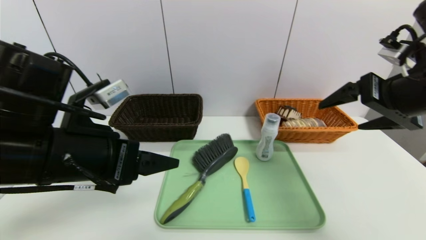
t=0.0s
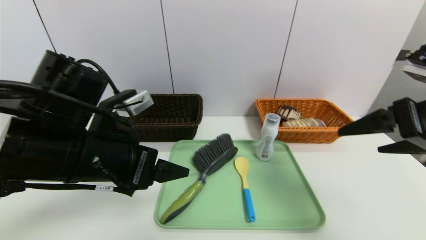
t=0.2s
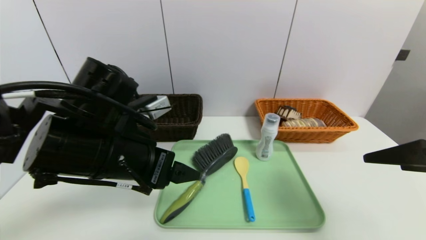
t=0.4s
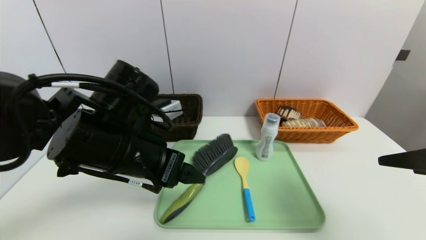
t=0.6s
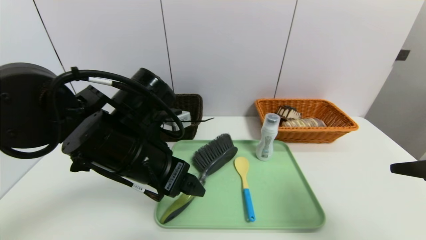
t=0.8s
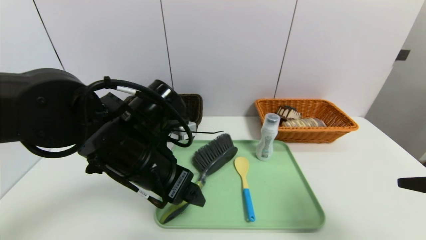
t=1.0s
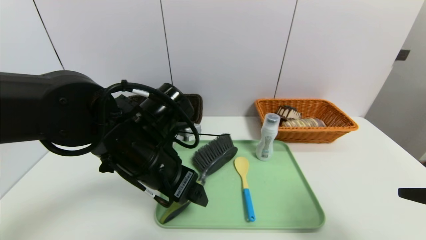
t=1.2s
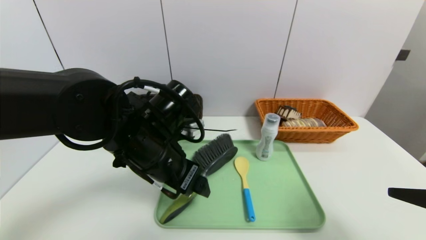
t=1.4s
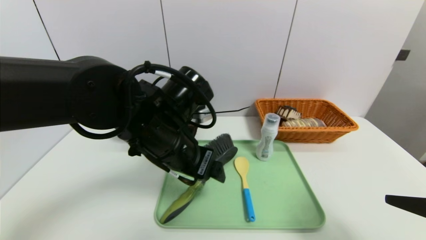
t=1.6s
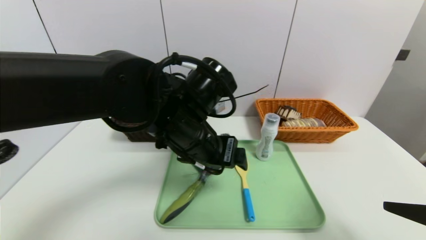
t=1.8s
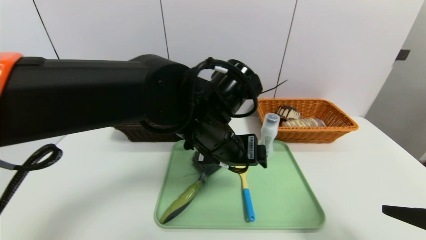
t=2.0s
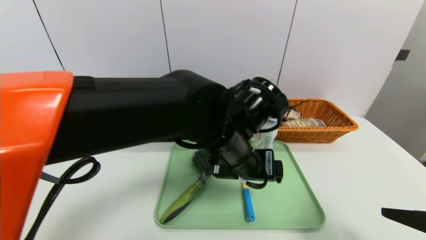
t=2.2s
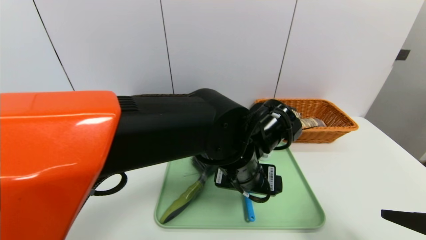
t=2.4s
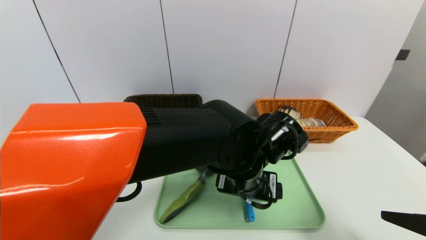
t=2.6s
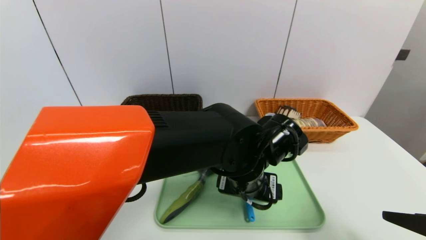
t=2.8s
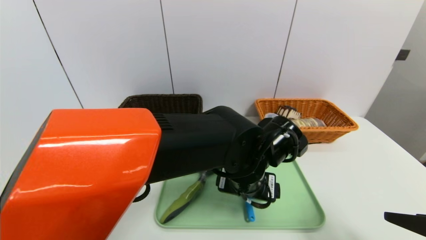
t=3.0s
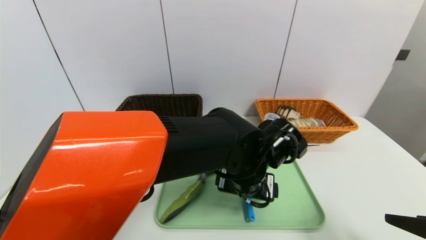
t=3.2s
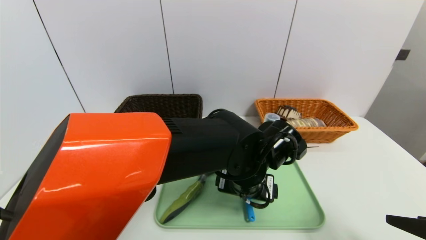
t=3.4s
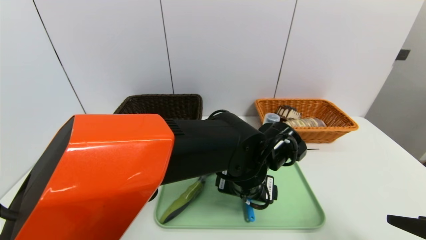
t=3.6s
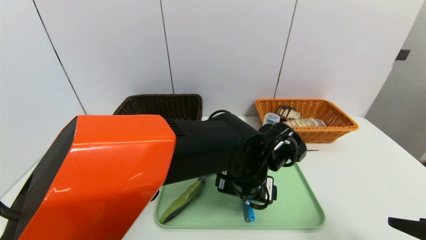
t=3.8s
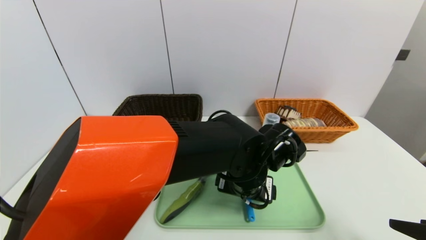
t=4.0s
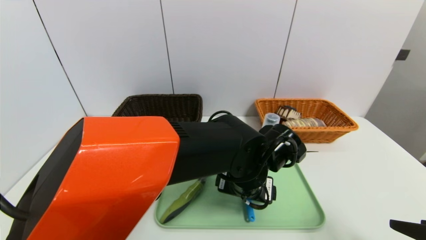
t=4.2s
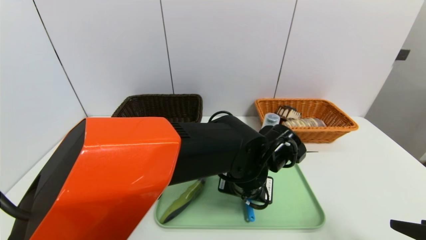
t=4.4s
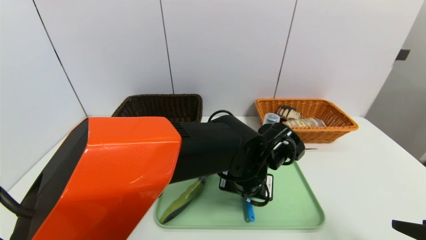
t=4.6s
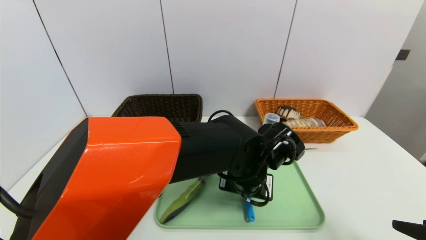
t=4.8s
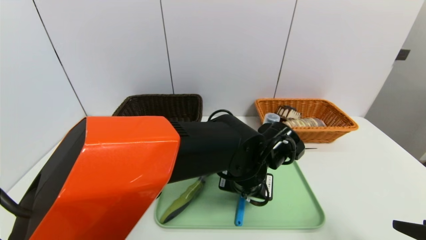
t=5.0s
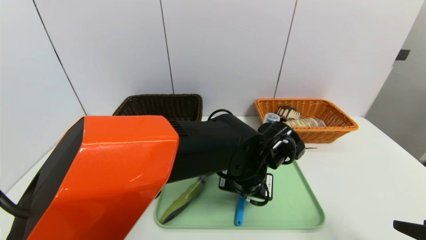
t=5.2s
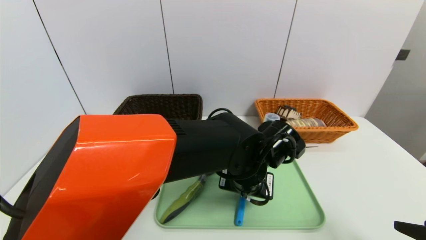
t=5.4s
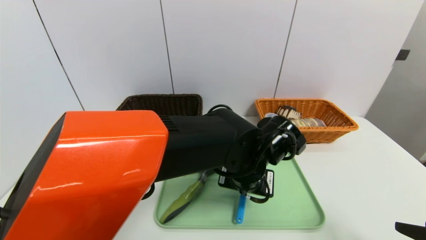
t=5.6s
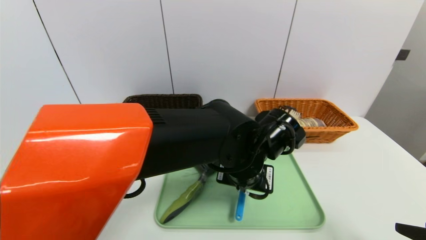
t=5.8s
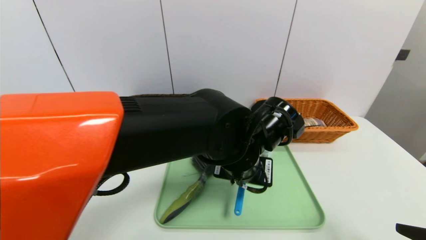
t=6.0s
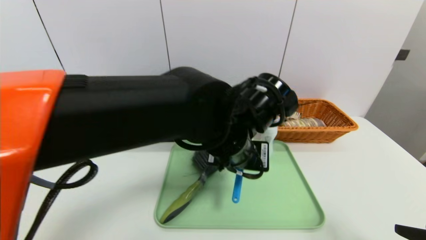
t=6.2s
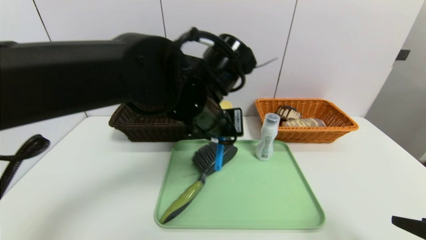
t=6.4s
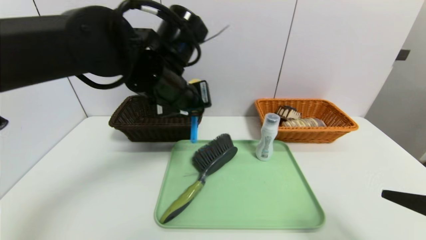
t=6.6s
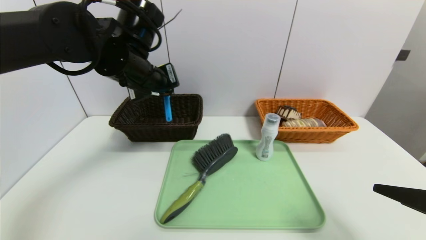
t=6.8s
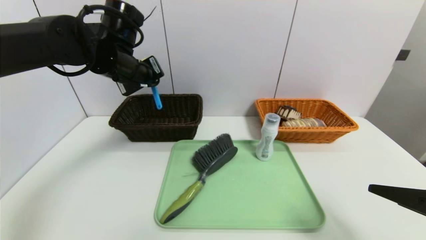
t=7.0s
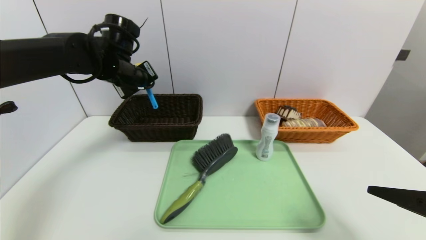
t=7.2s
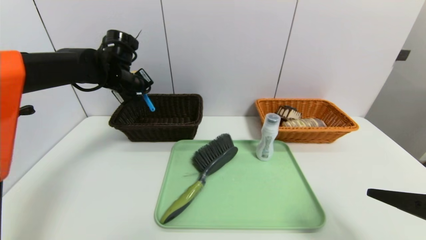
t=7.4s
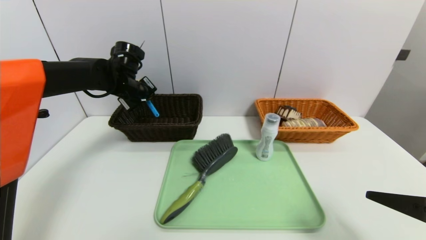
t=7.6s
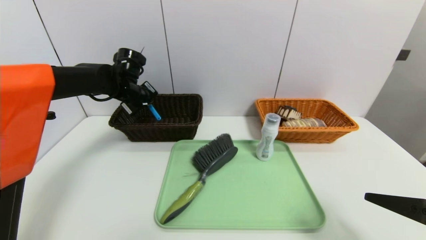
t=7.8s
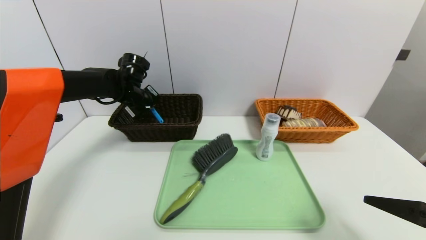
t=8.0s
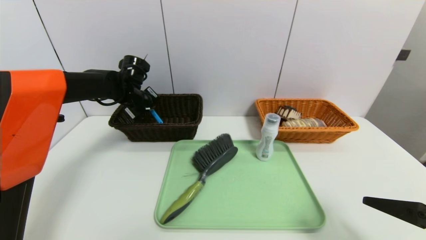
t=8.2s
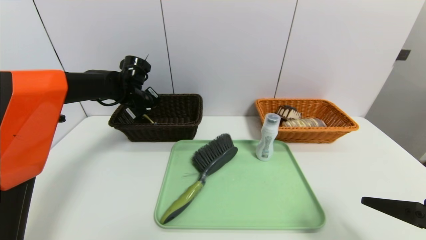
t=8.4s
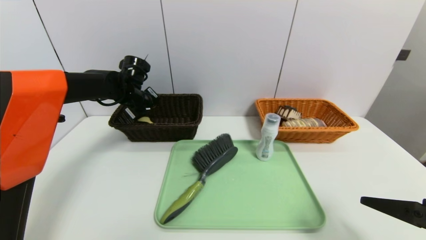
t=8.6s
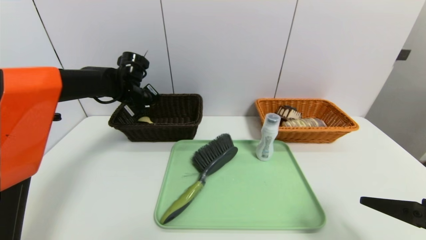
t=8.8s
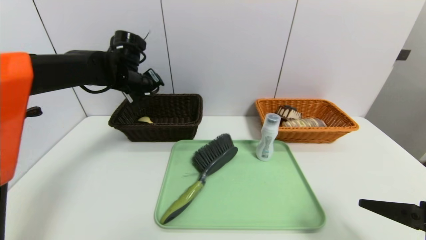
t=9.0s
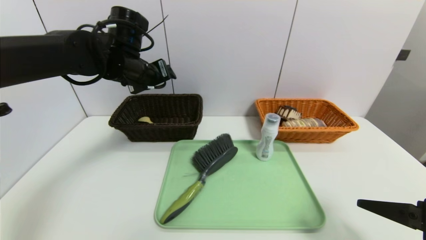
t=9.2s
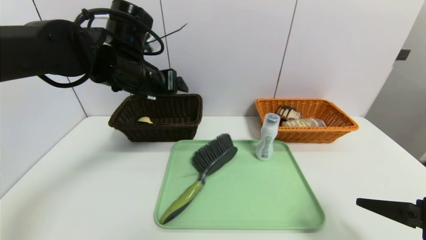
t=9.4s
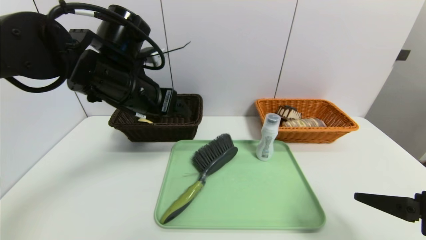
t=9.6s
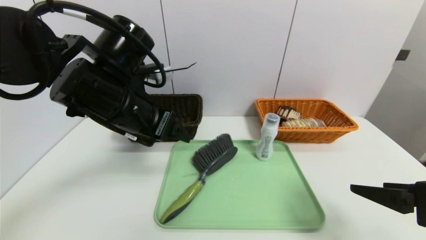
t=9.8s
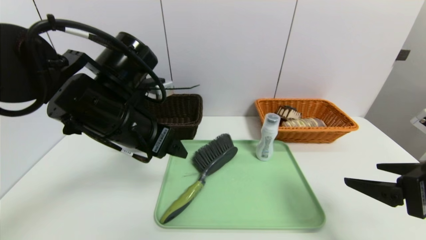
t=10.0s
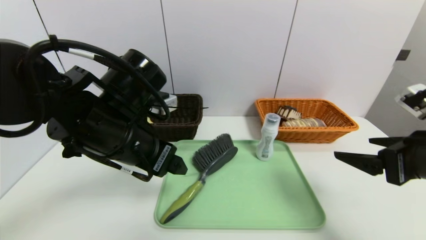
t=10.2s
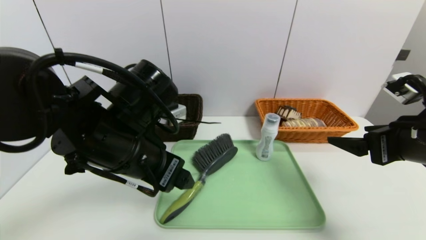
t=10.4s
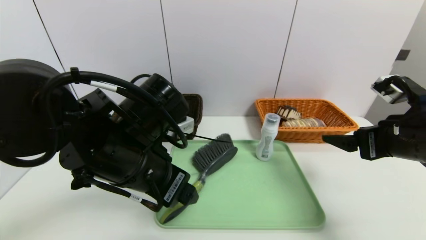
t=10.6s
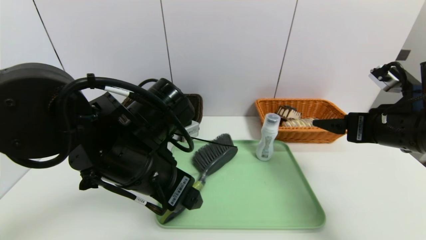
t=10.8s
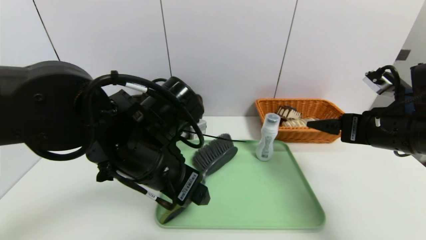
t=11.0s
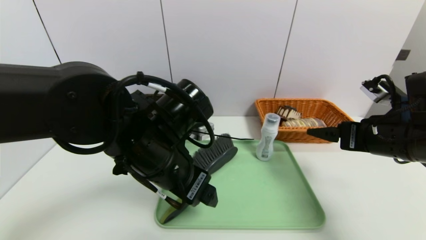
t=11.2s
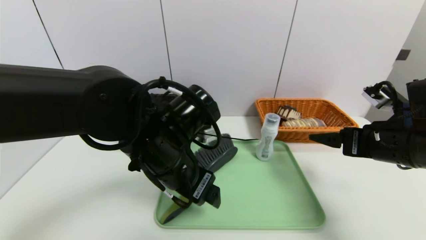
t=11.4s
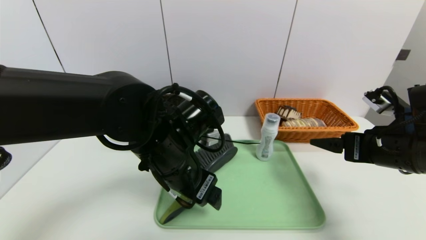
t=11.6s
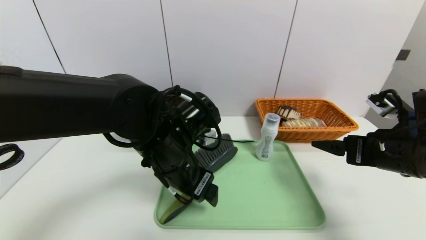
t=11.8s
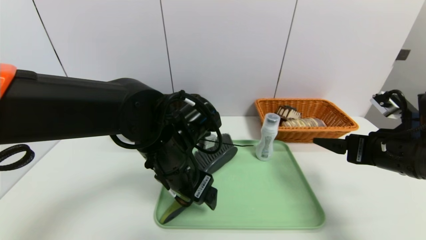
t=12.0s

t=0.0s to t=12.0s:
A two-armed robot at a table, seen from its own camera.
Task of the whole recording: place the food in the right basket with the right gripper, and place the non food items in the left basket with the left gripper.
Step, t=0.0s to t=8.8s: Grasp the spoon and put it in the left basket.
t=0.0s to t=1.6s: The right gripper shifts about 15 cm backward and downward. Meanwhile the left gripper is displaced to the right and forward by some 15 cm.
t=1.6s to t=3.0s: The left gripper heads to the right and downward, covering about 15 cm.
t=3.0s to t=4.4s: The grippers move only a little.
t=4.4s to t=6.0s: The left gripper ends up some 5 cm from where it was, and closes up.
t=6.0s to t=7.6s: The left gripper goes roughly 35 cm to the left and forward.
t=7.6s to t=9.0s: The left gripper opens.
t=9.0s to t=10.4s: The left gripper is displaced backward by about 20 cm, while the right gripper is displaced forward by roughly 10 cm.
t=10.4s to t=12.0s: The left gripper moves downward and to the right, approximately 5 cm.

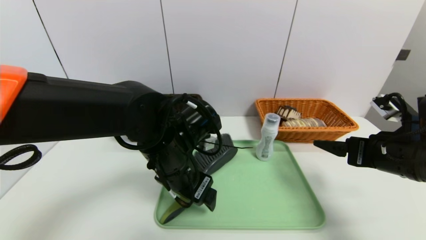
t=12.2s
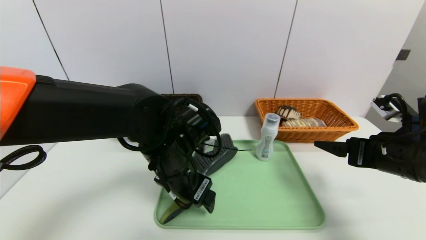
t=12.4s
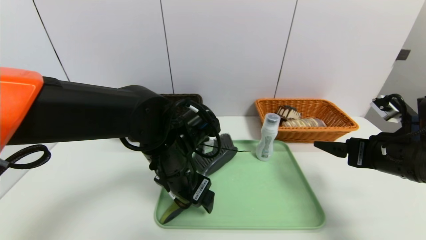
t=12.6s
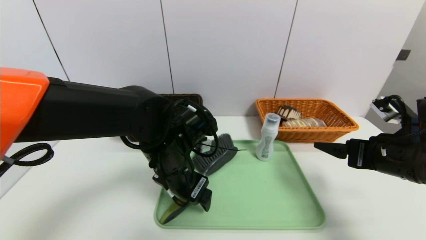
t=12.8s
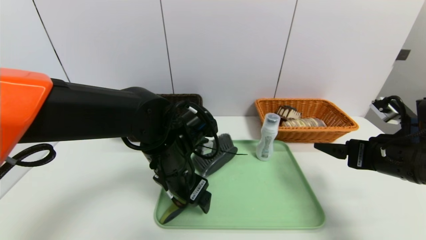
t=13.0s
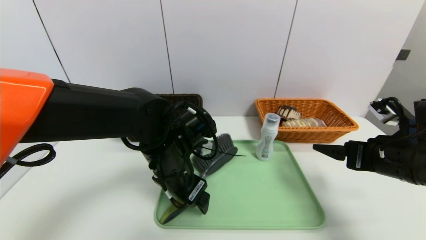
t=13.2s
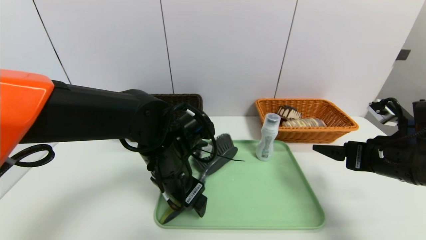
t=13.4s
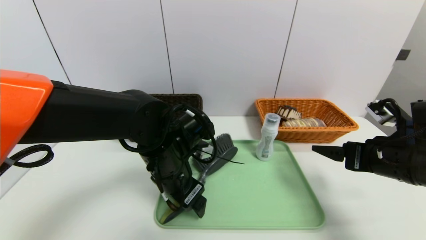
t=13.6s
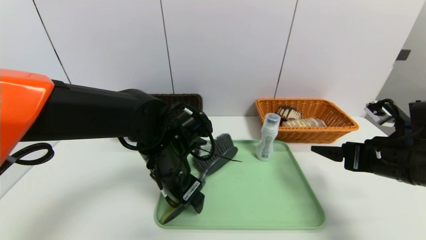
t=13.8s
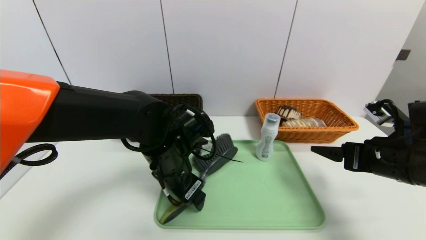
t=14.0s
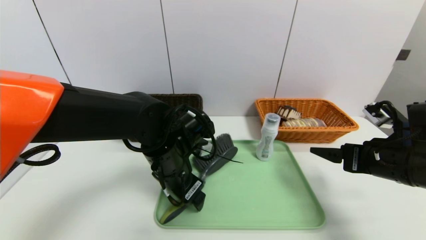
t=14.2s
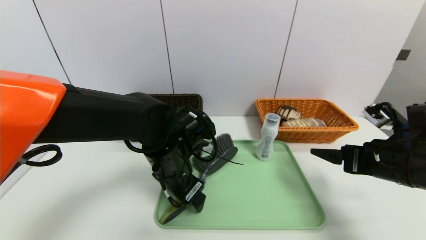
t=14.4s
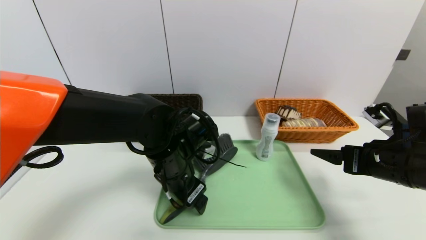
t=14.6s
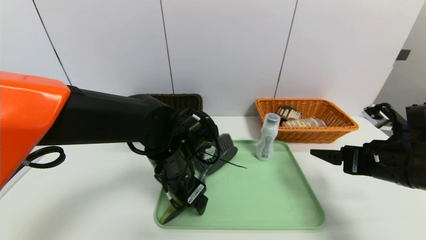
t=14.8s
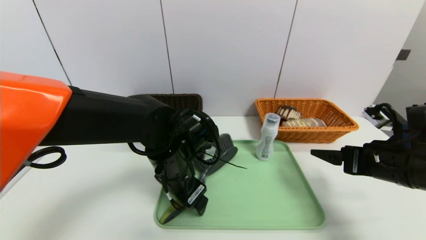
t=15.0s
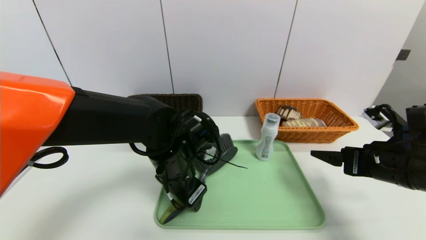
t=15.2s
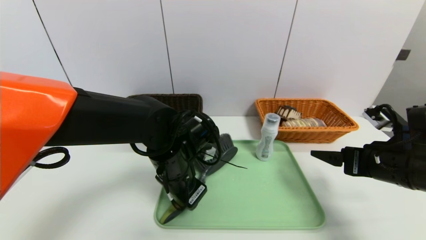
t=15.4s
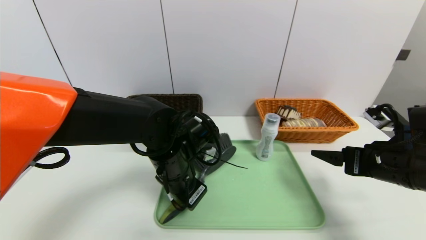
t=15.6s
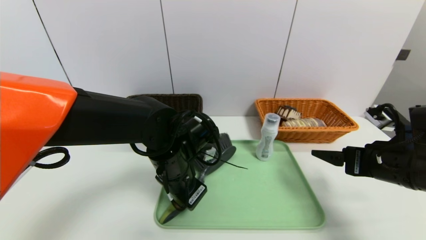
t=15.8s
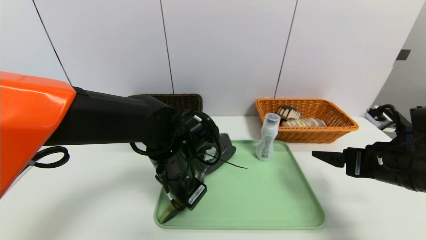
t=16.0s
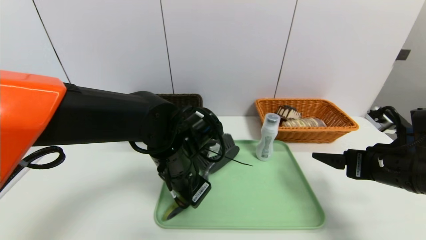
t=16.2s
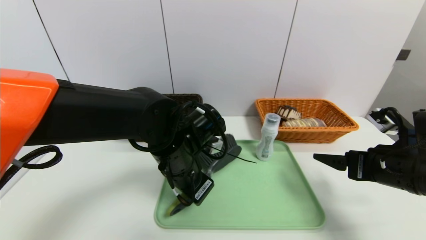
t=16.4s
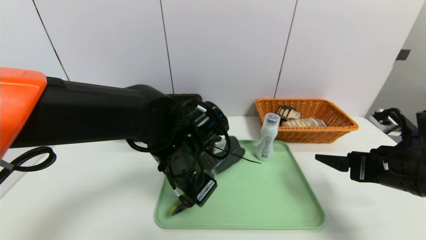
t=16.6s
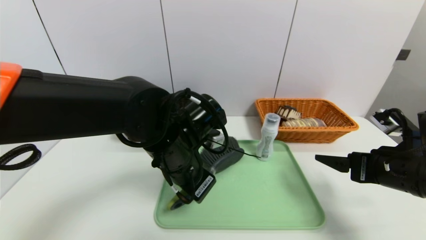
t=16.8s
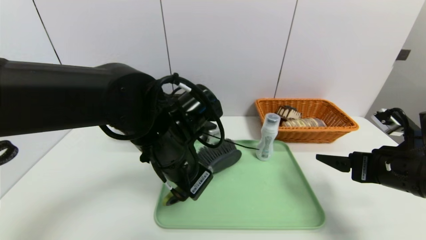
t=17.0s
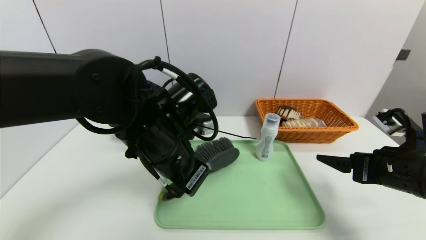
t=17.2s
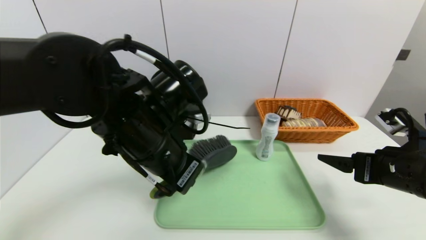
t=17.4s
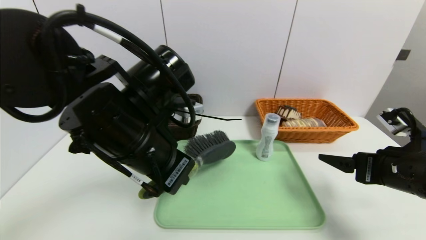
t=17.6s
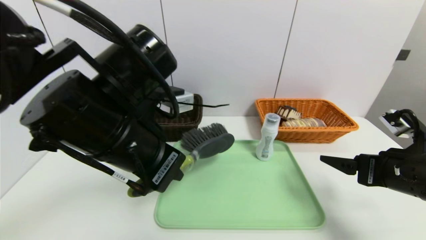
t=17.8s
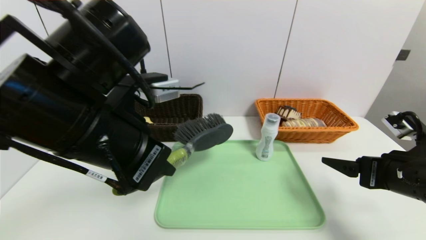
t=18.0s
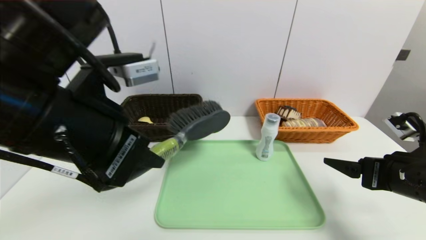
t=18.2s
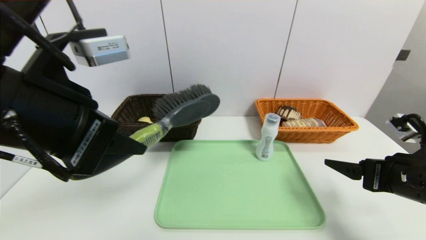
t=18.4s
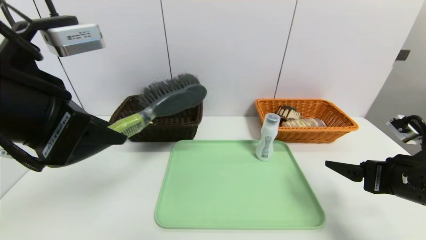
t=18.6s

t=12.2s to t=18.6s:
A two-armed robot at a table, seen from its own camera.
Task of the whole recording: place the food in the right basket with the right gripper, and place the non food items in the left basket with the left gripper.
t=12.2s to t=13.8s: The grippers stay close to where they were, moving slightly.
t=13.8s to t=15.4s: The left gripper closes up.
t=15.4s to t=17.0s: The left gripper heads upward, covering about 5 cm.
t=17.0s to t=18.6s: The left gripper moves upward, to the left and backward, some 20 cm.
